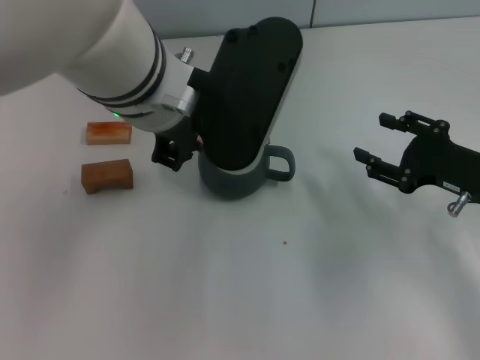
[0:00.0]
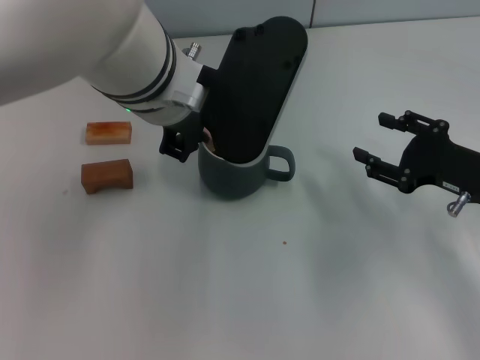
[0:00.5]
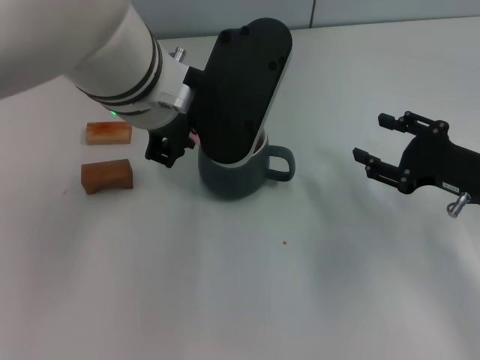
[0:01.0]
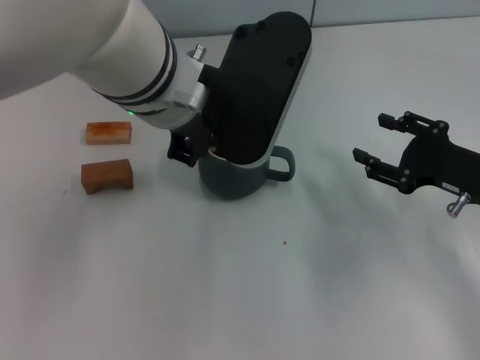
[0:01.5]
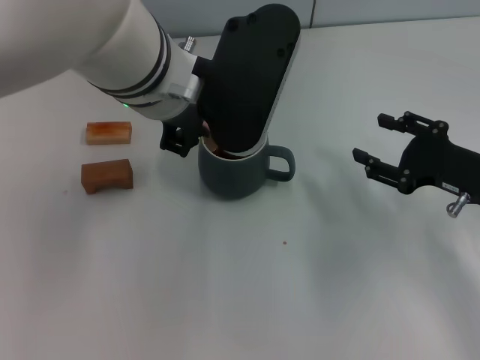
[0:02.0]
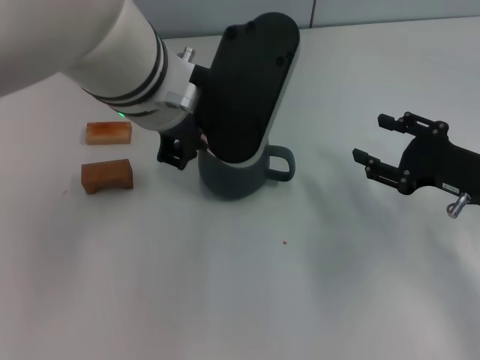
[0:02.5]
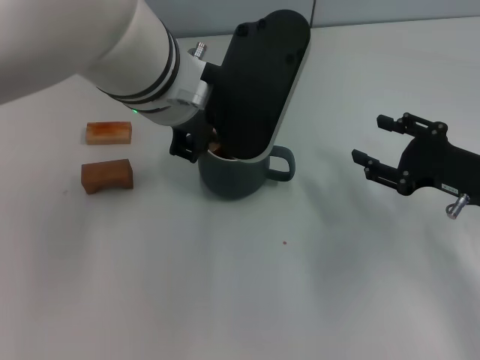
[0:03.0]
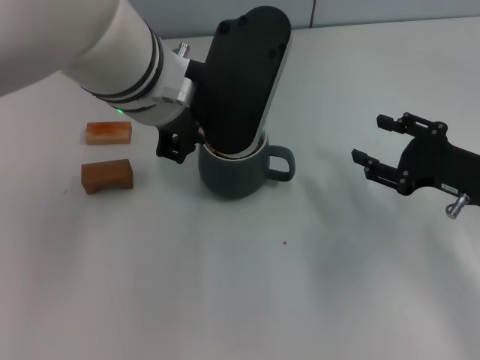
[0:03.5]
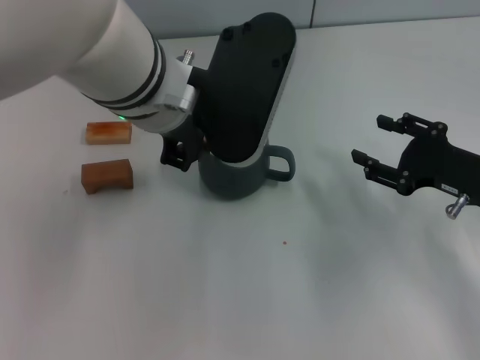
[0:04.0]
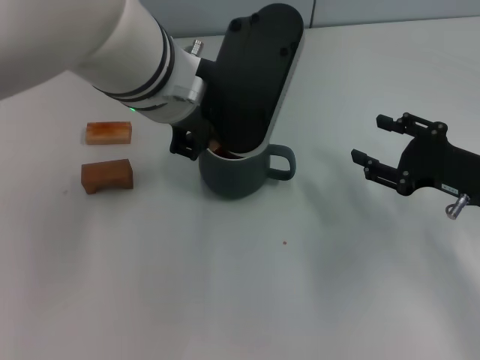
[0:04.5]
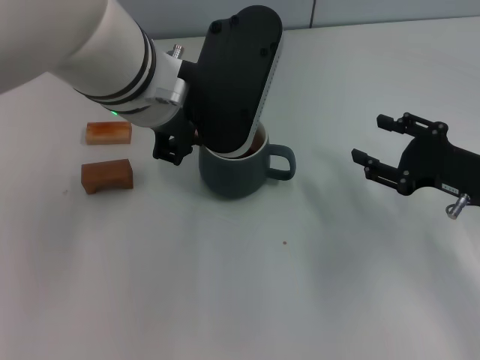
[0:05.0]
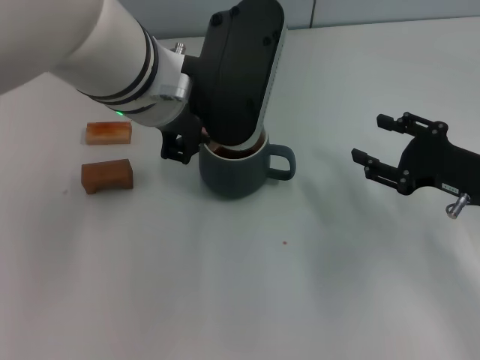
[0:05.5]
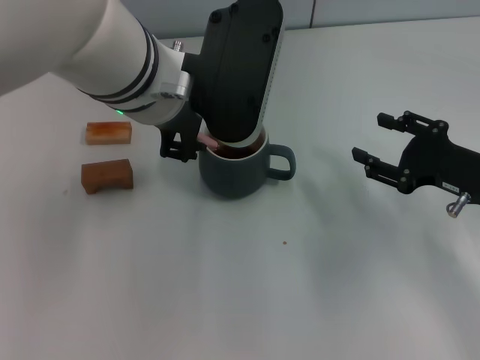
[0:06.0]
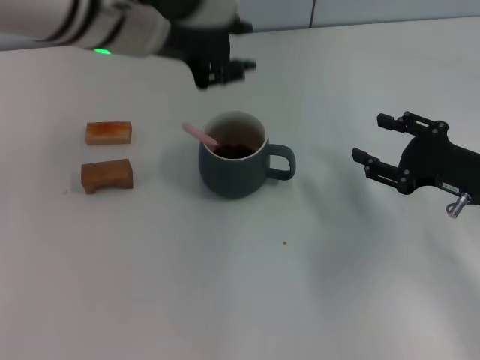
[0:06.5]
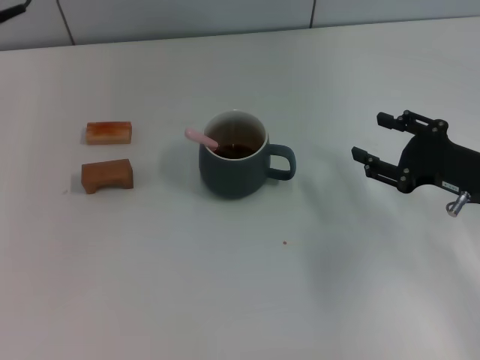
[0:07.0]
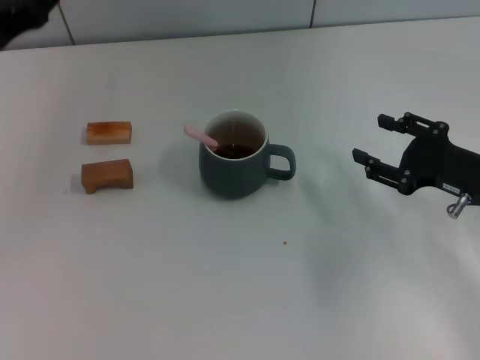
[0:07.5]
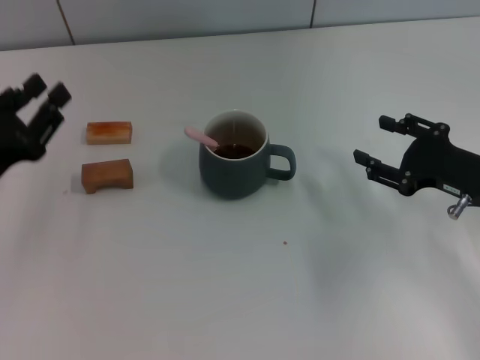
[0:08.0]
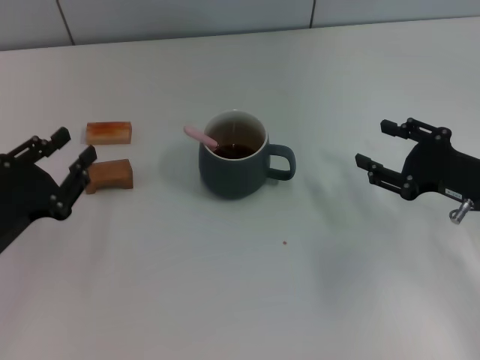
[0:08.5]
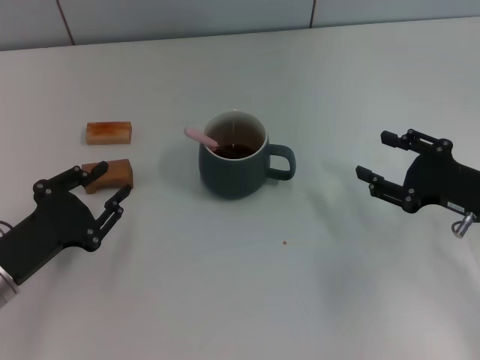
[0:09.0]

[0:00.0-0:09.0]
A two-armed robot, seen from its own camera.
Task of the whole recording: Move the grey cup to the center, lift the pink spoon, stir it three times in the cup, and put the spoon into the cup.
Step, 0:00.0 to 0:06.0: Stir the coffee in the cup with the left gripper.
0:00.0 to 0:02.0: The grippers move only a little.
0:02.0 to 0:04.5: Both grippers stay put.
0:04.5 to 0:07.0: The left gripper travels to the left by approximately 15 cm, and opens.
0:07.0 to 0:09.0: The left gripper travels downward and backward by some 25 cm.

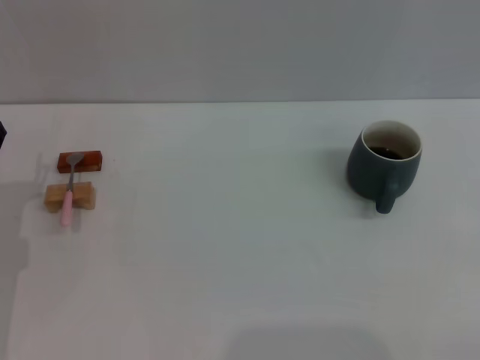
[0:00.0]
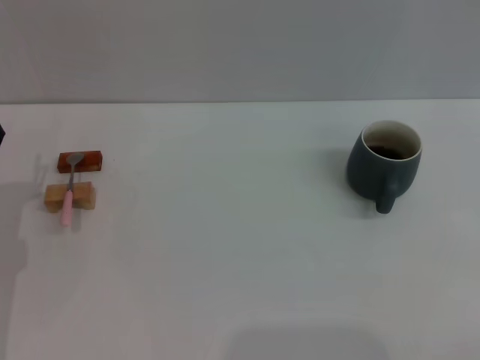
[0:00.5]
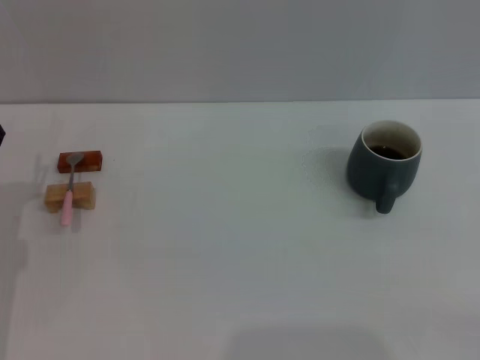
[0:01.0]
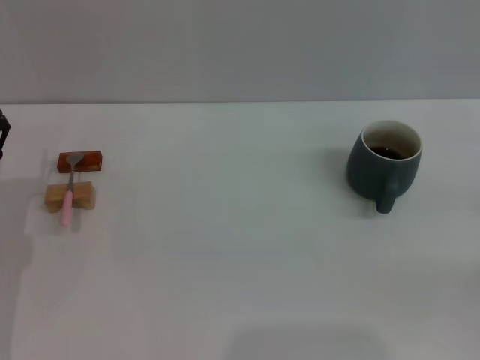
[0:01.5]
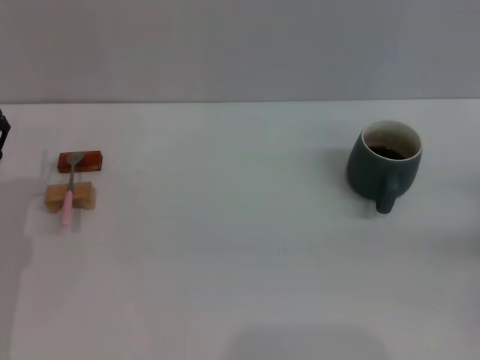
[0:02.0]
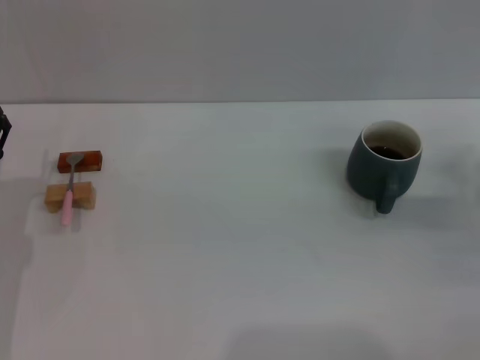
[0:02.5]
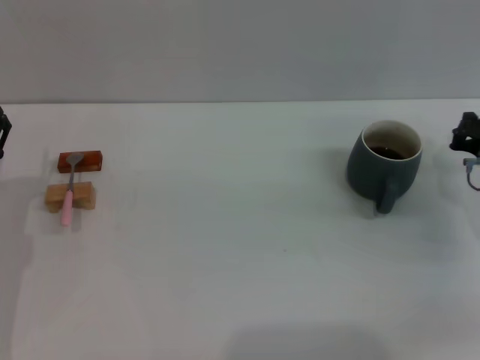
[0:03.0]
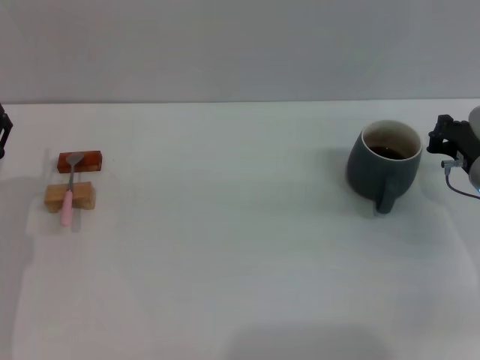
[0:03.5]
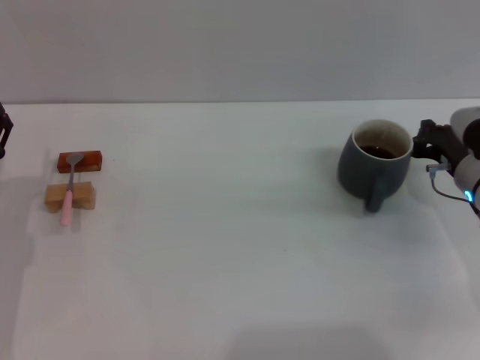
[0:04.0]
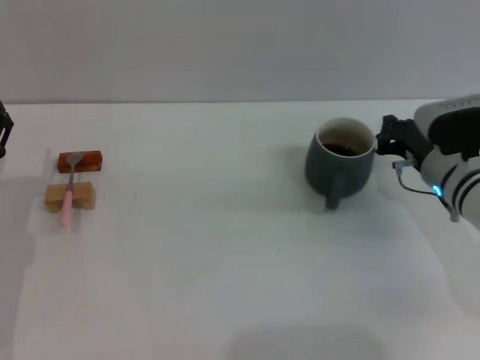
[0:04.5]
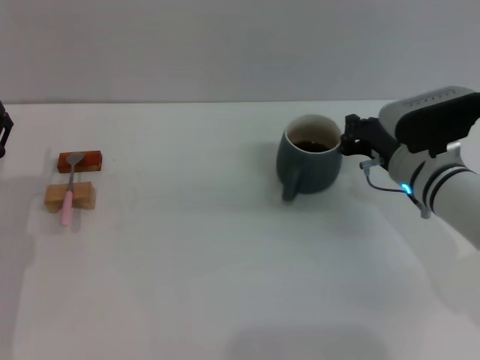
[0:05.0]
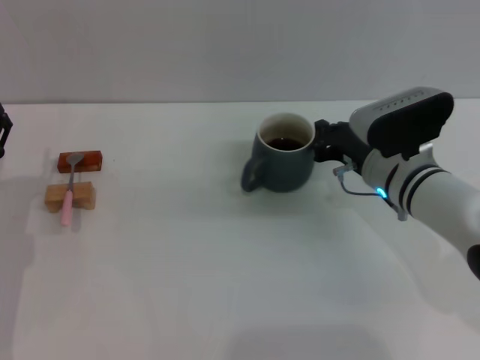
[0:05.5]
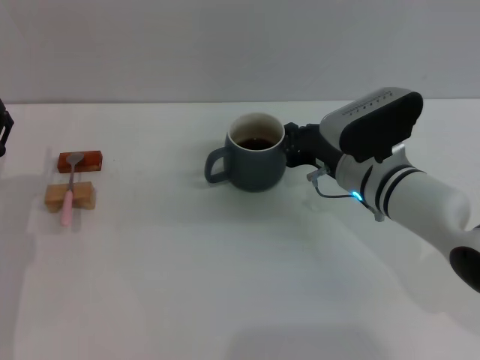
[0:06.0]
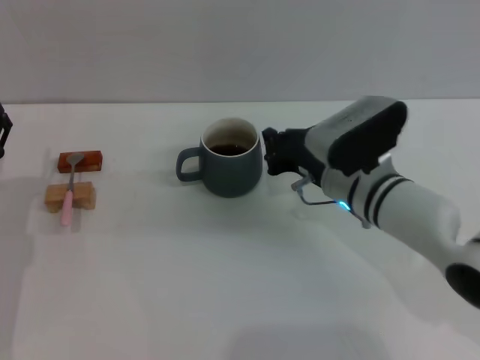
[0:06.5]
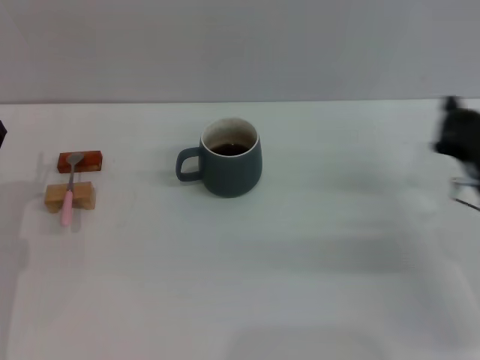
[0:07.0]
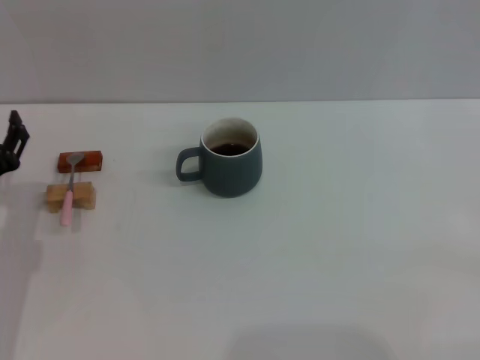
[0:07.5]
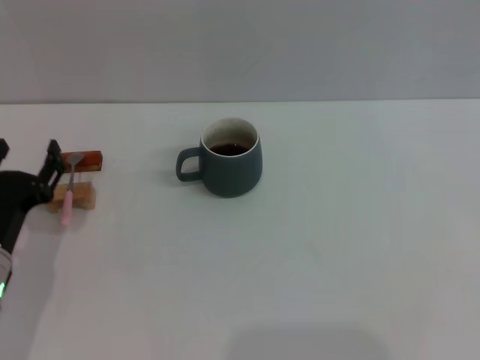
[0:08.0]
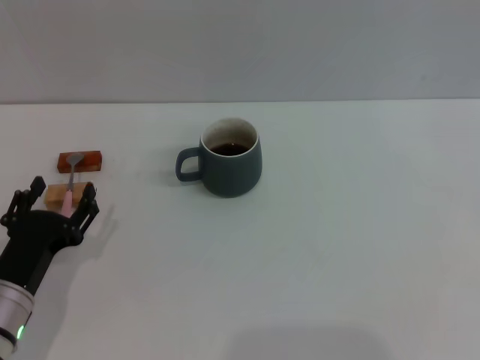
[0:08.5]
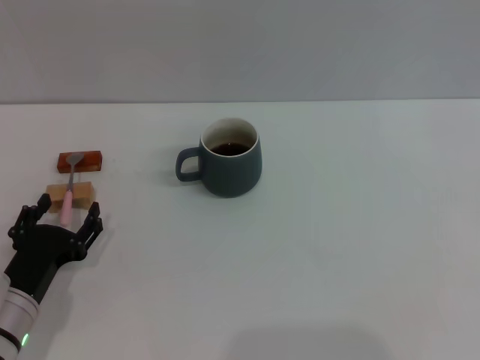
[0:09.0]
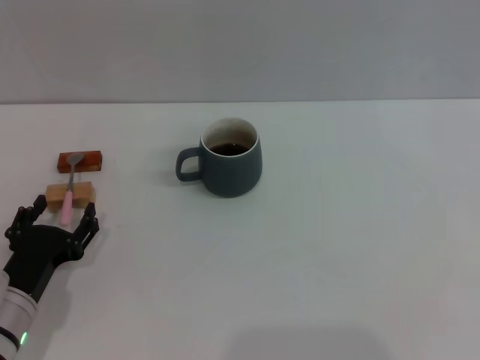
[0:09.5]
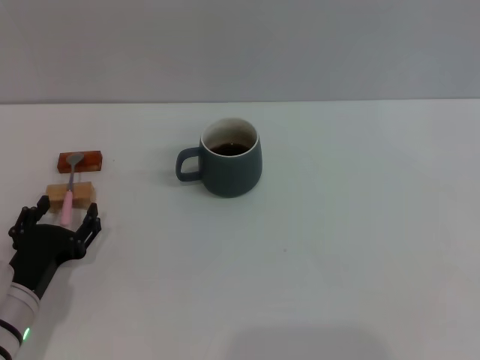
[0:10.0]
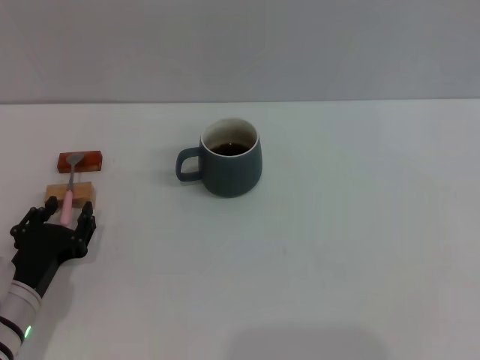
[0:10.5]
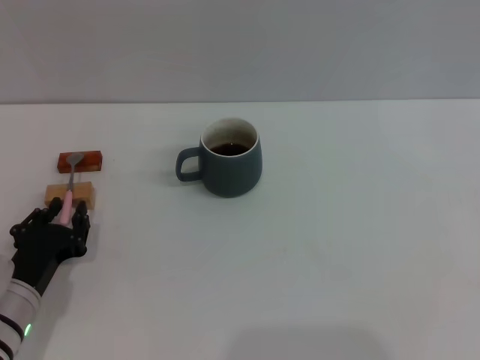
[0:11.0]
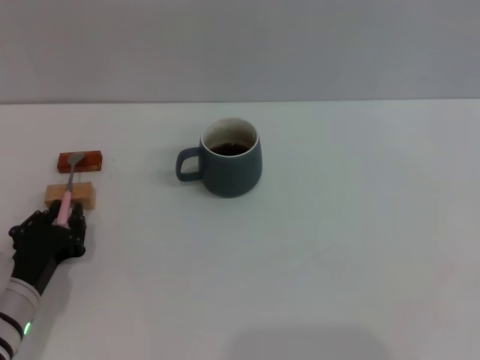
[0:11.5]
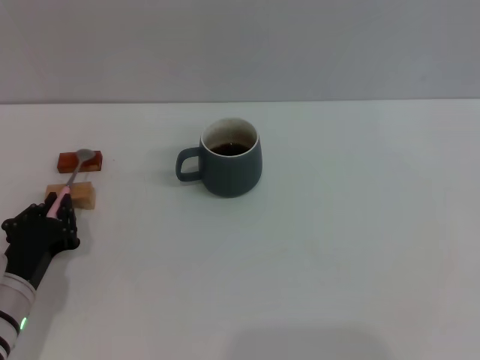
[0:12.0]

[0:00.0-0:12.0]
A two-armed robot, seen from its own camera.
Task of the whole recording: Move the grey cup to the center, lift the pink spoon, stir it three times in the cup, and put the spoon into the cup.
Step, 0:00.0 to 0:07.0: Move the cup with coffee to the center of view with the right gripper.
0:02.0 to 0:04.0: The right gripper is displaced to the left and forward by some 15 cm.
0:04.0 to 0:06.0: The right gripper moves to the left, some 10 cm.
0:06.0 to 0:08.0: The right gripper heads to the right and backward, covering some 35 cm, while the left gripper ends up roughly 5 cm from where it was.
0:10.0 to 0:12.0: The left gripper closes up.

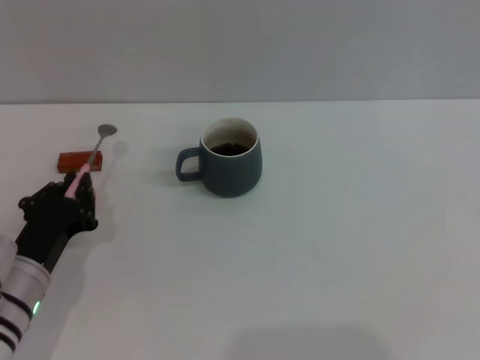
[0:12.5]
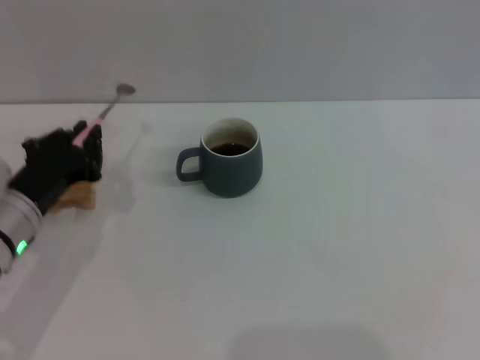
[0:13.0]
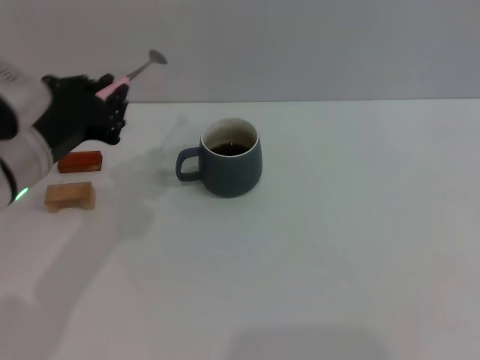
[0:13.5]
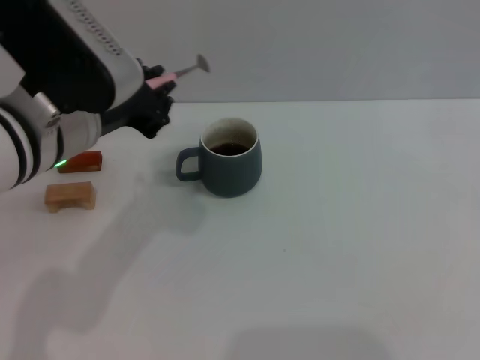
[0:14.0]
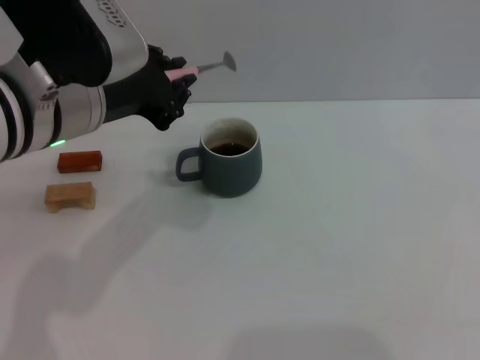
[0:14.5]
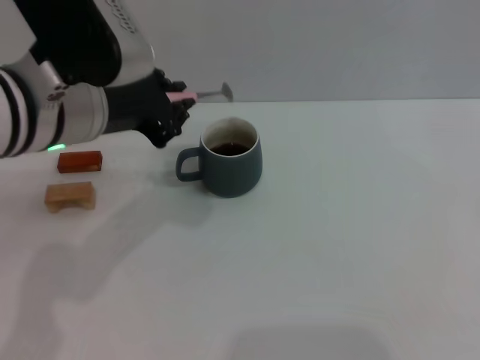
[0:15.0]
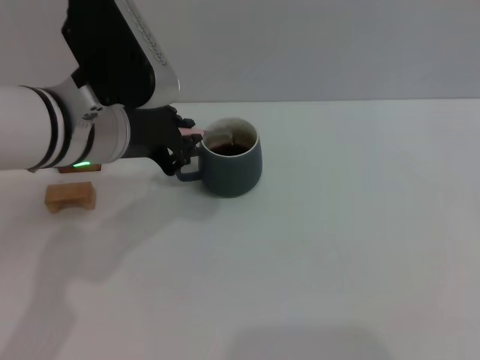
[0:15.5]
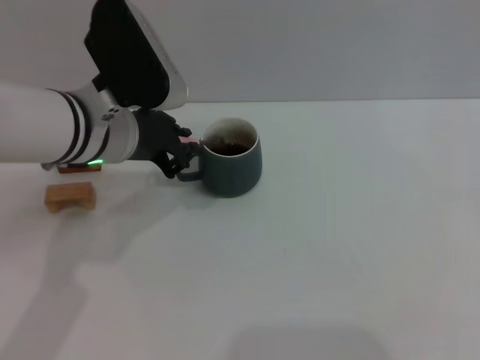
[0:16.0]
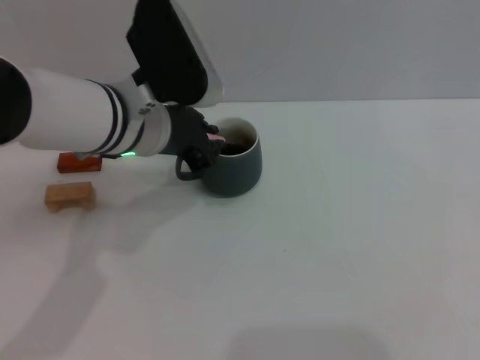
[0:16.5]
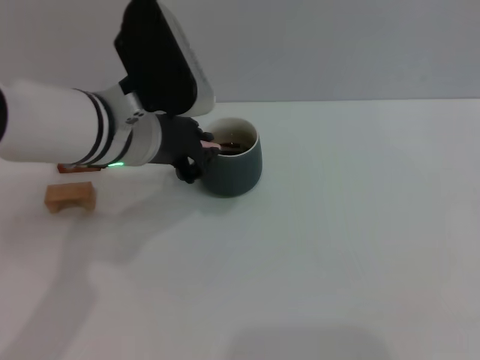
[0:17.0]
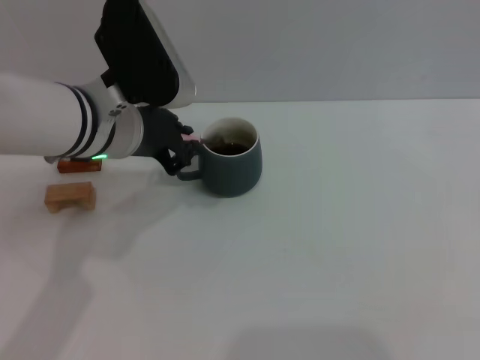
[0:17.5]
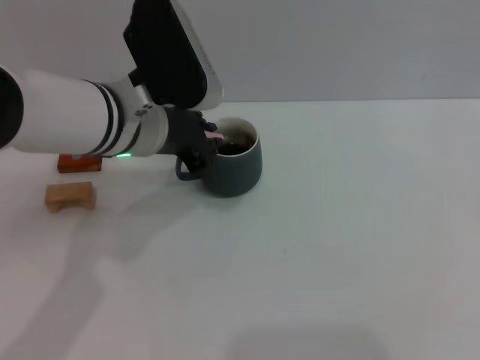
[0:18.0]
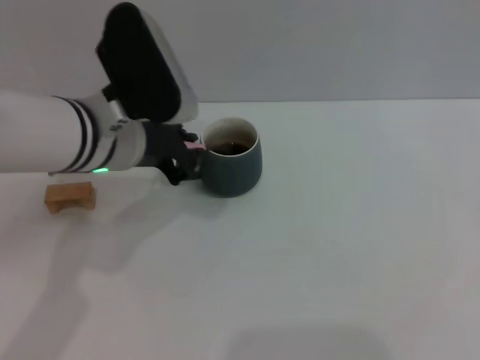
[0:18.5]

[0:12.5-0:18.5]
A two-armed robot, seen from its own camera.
Task of the whole recording: Move the grey cup to the center, lift the pink spoon, stir it three times in the cup, and put the spoon into the cup.
0:12.5 to 0:14.5: The left gripper moves upward, some 25 cm.
0:14.5 to 0:16.5: The left gripper is displaced forward and downward by some 10 cm.
0:16.5 to 0:18.5: The grippers make only small movements.
